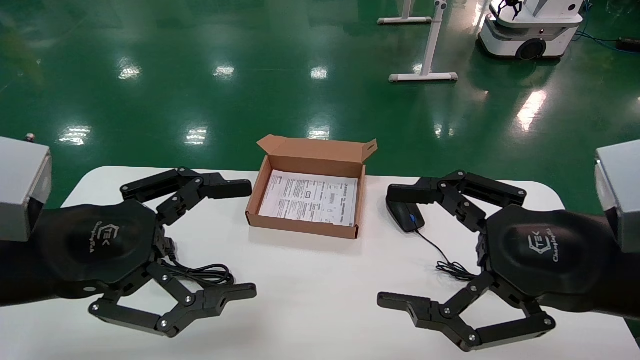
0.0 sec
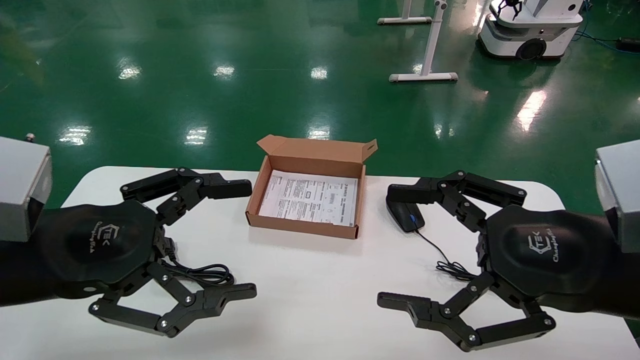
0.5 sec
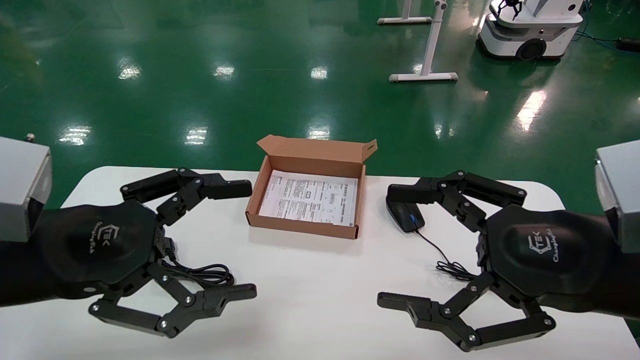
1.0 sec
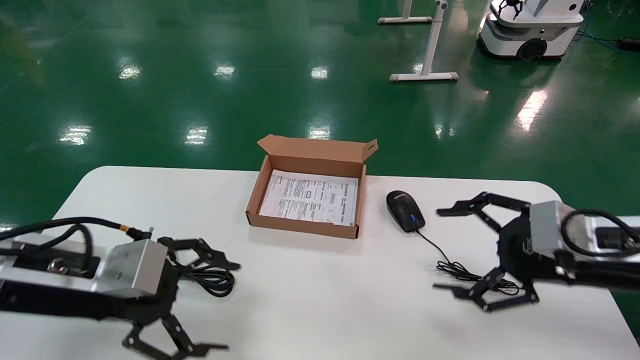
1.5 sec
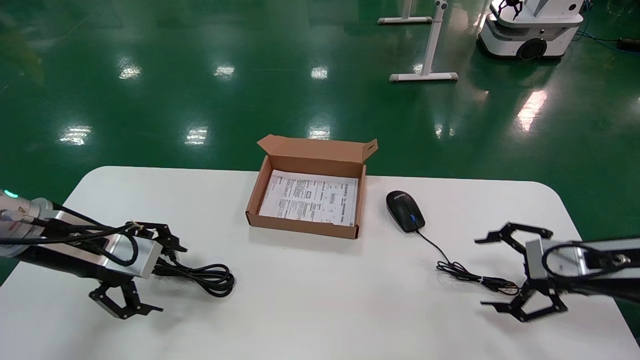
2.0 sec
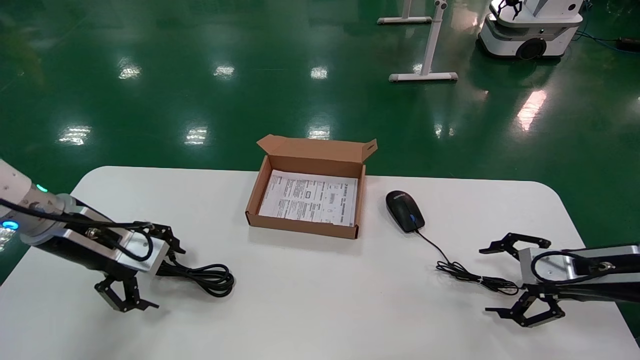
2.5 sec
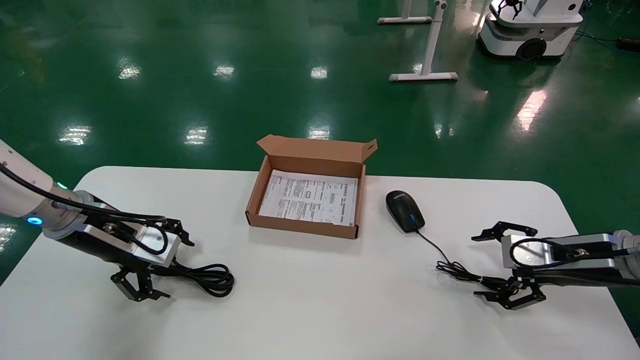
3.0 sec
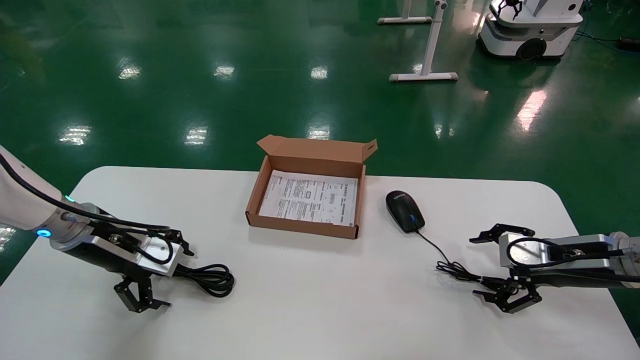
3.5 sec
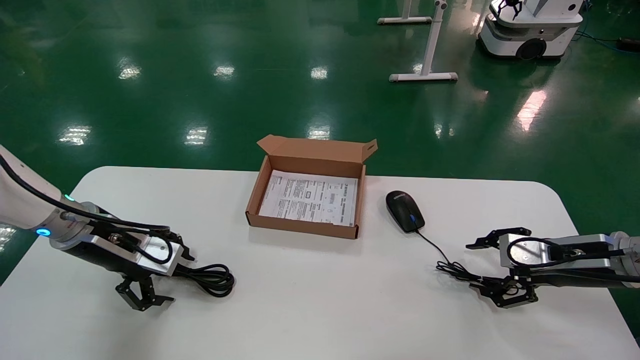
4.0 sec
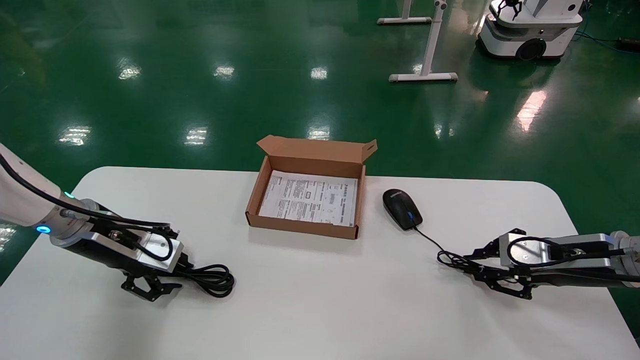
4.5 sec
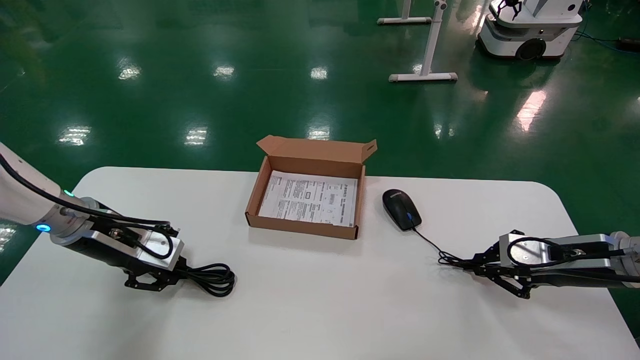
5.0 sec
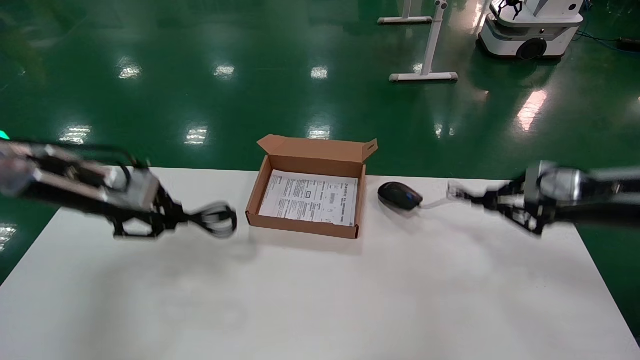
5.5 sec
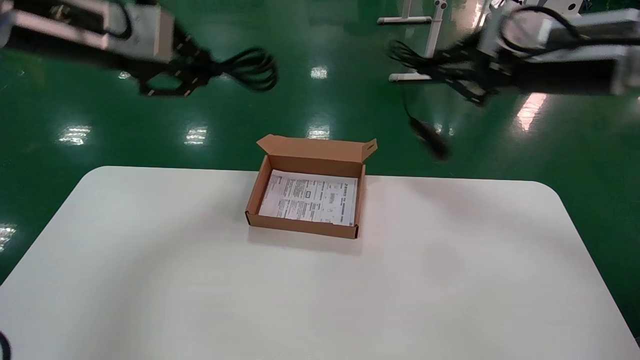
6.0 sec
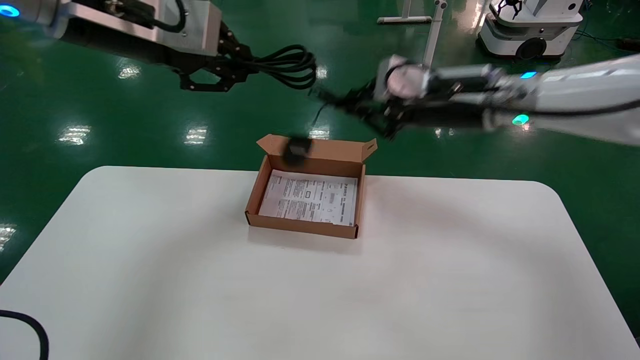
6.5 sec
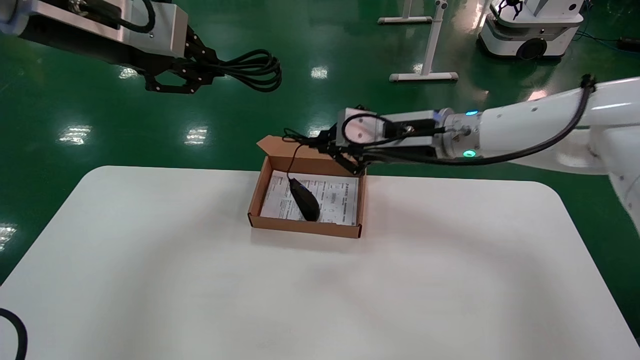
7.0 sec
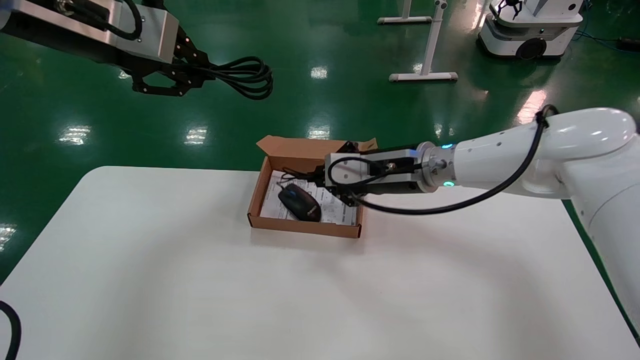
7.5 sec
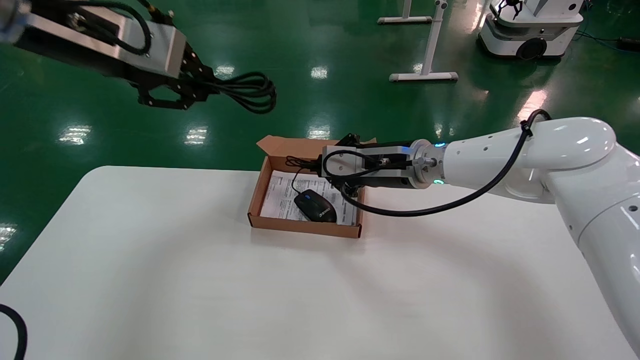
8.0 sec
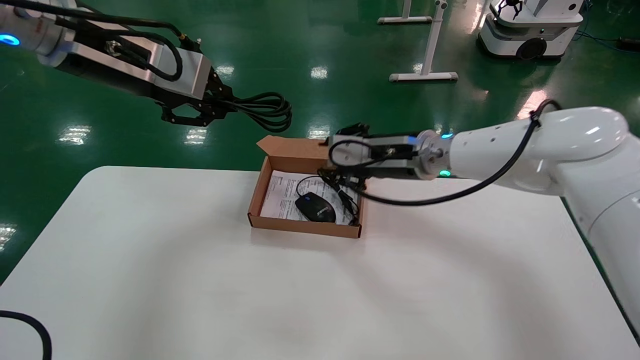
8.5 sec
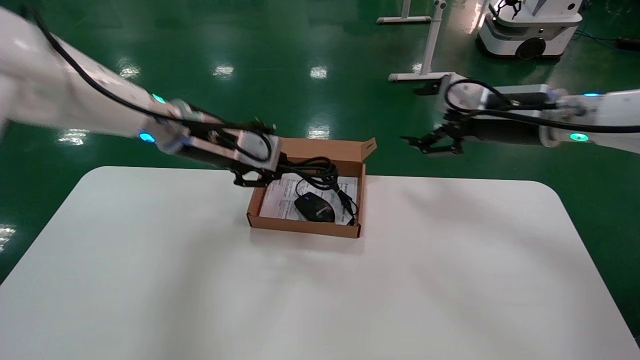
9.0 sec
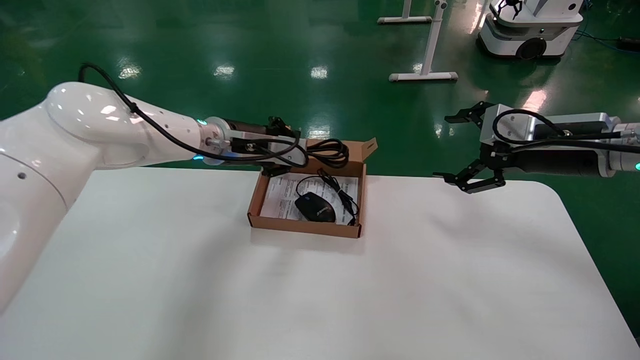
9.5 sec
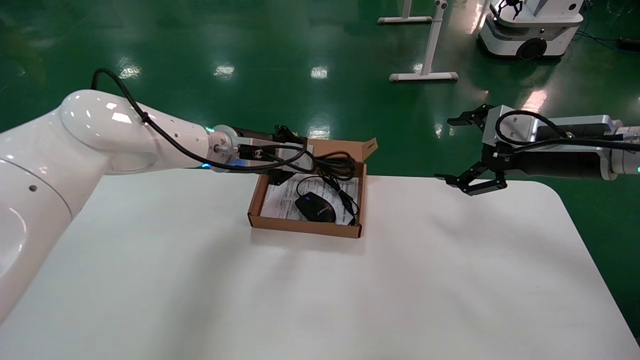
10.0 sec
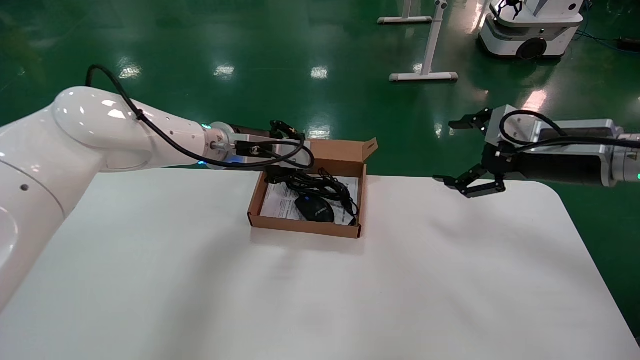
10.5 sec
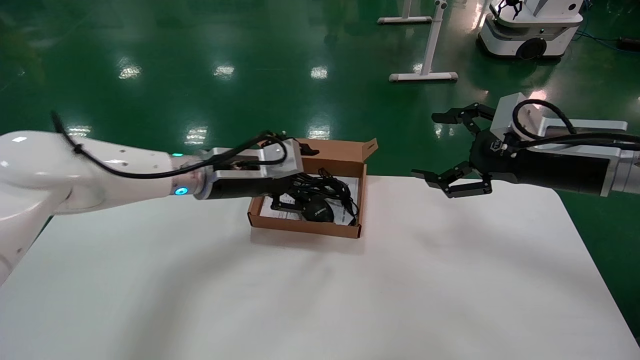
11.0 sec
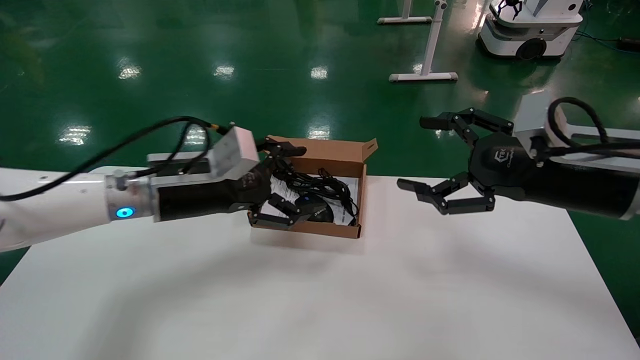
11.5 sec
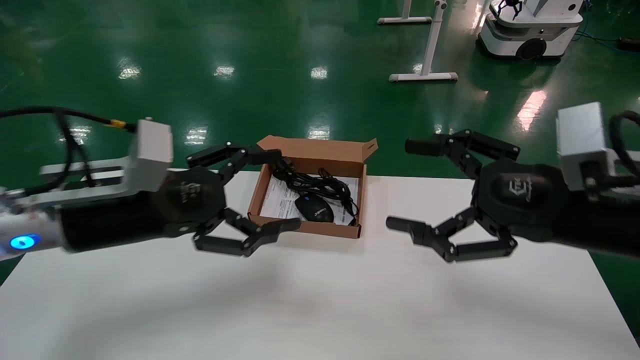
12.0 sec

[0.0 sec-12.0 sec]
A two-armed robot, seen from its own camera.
Step, 1.5 sec to 4.5 sec: Grab and lift both the mouse and power cord from the accessory packaging area at the same time.
Step, 5.0 sec to 10.5 sec: Place the mouse and power cord into the box.
0.0 sec to 2.0 sec: The right gripper moves forward, to the right and downward, some 20 cm. Meanwhile the left gripper goes approximately 15 cm forward and to the left.
2.0 sec to 4.0 sec: The right gripper moves approximately 5 cm, while the left gripper moves forward, some 5 cm.
4.0 sec to 6.0 sec: The two grippers go approximately 25 cm upward. The right gripper closes its fingers. Meanwhile the left gripper closes its fingers.
6.0 sec to 8.0 sec: The right gripper goes some 25 cm to the left, downward and forward.
8.0 sec to 10.0 sec: The left gripper shifts approximately 25 cm downward, forward and to the right, while the right gripper goes approximately 20 cm to the right, and opens.
10.0 sec to 12.0 sec: The left gripper shifts some 20 cm backward and to the left, and opens. Meanwhile the right gripper goes roughly 15 cm backward.

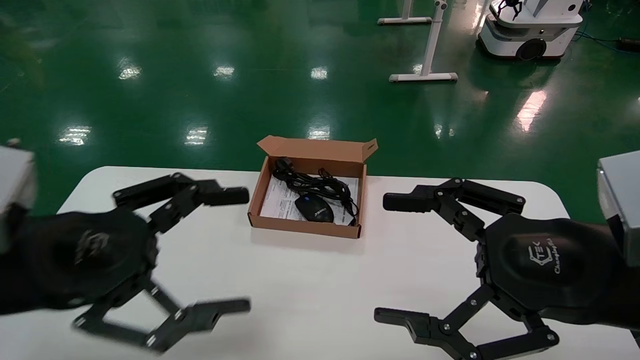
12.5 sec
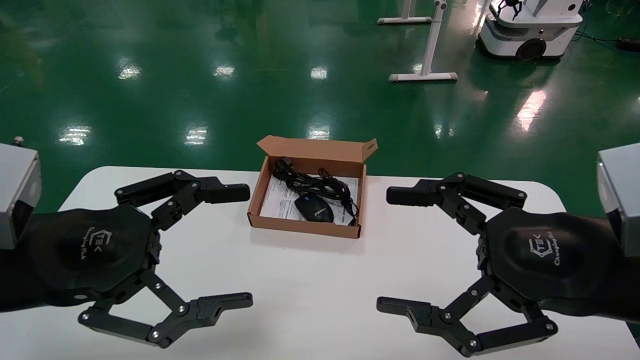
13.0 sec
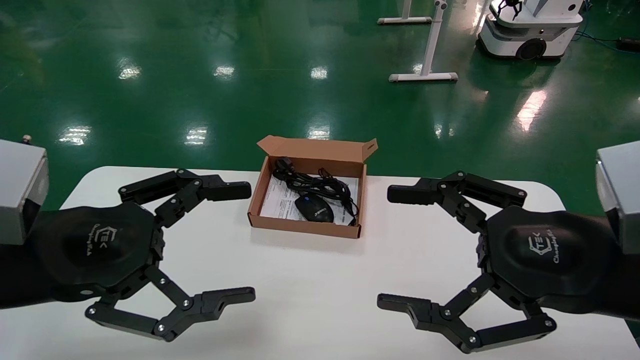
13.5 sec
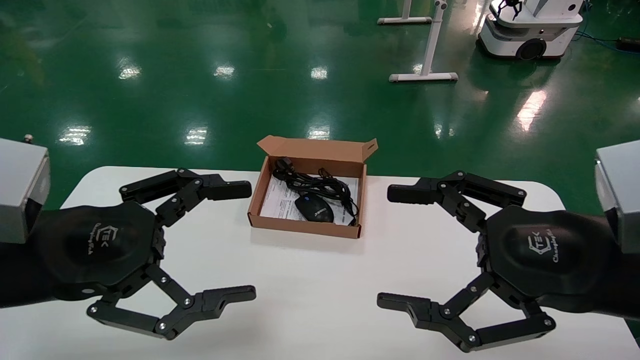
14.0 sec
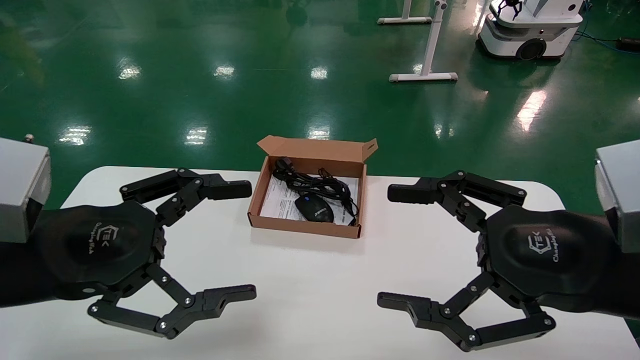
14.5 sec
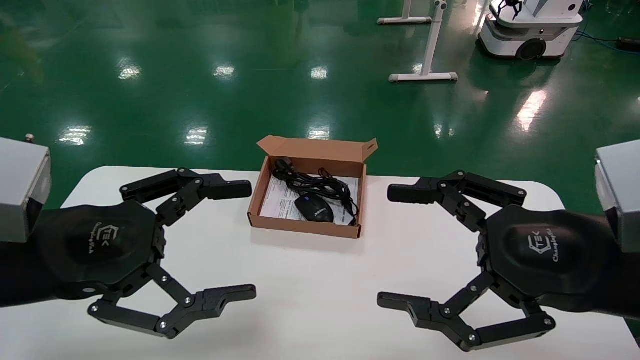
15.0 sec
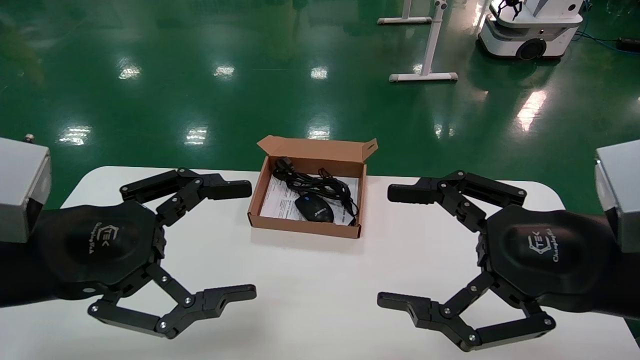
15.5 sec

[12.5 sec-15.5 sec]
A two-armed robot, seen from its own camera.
12.5 sec to 15.5 sec: Neither gripper changes place.
